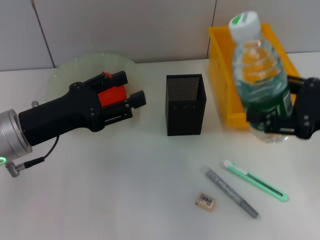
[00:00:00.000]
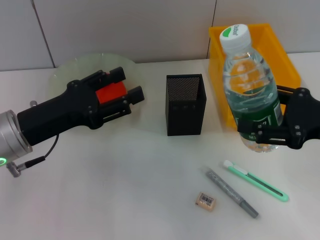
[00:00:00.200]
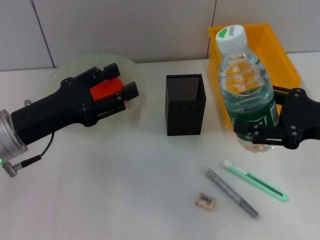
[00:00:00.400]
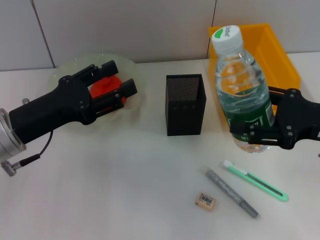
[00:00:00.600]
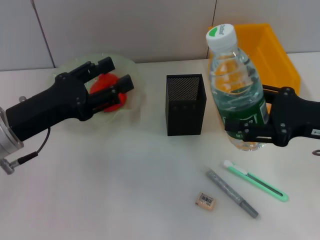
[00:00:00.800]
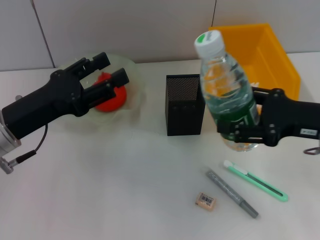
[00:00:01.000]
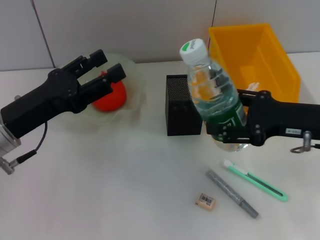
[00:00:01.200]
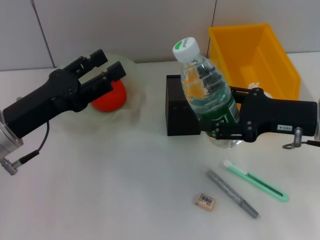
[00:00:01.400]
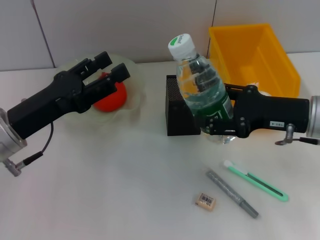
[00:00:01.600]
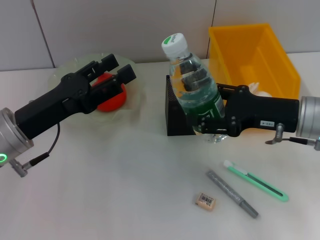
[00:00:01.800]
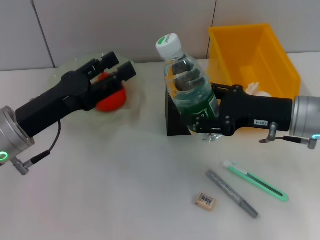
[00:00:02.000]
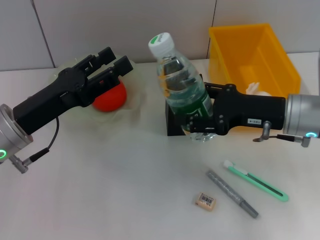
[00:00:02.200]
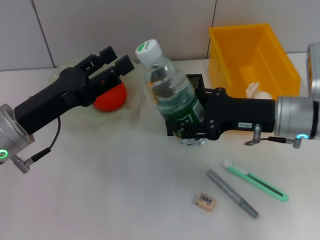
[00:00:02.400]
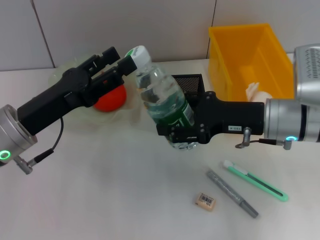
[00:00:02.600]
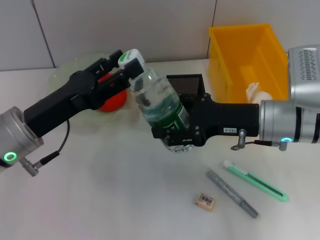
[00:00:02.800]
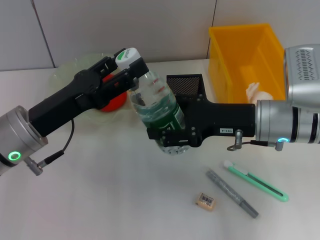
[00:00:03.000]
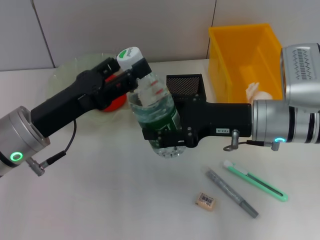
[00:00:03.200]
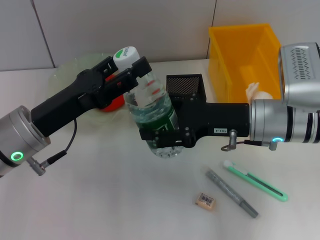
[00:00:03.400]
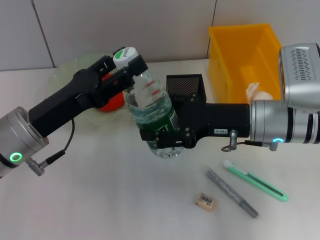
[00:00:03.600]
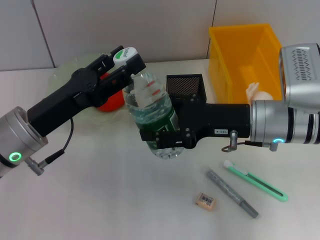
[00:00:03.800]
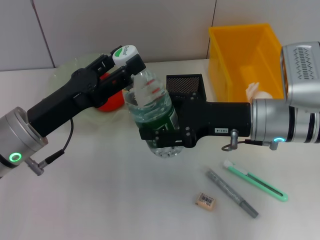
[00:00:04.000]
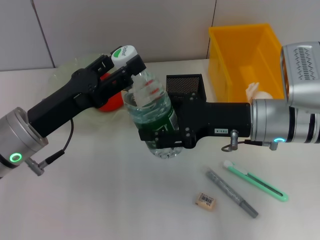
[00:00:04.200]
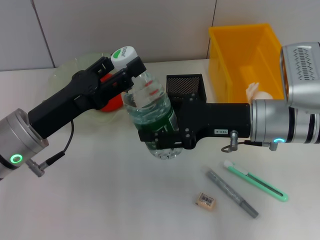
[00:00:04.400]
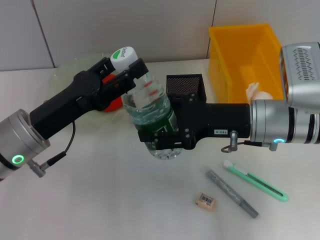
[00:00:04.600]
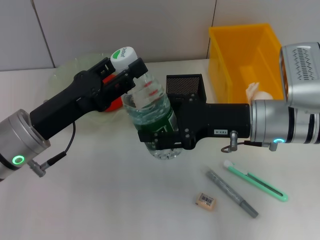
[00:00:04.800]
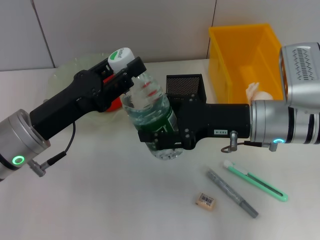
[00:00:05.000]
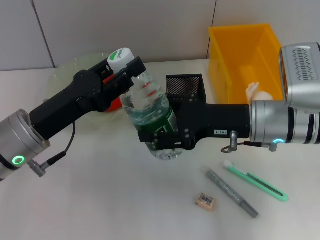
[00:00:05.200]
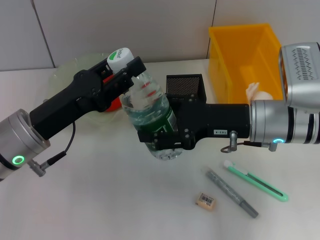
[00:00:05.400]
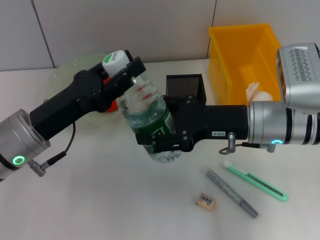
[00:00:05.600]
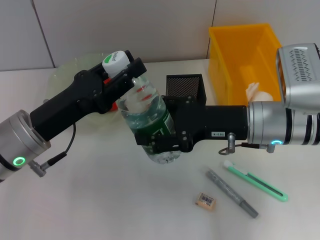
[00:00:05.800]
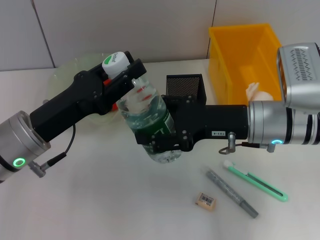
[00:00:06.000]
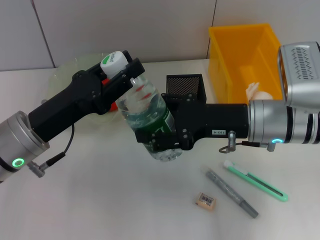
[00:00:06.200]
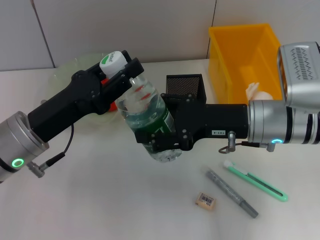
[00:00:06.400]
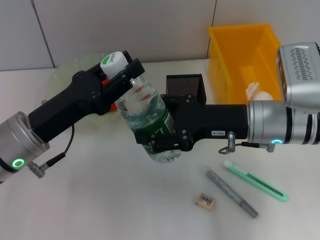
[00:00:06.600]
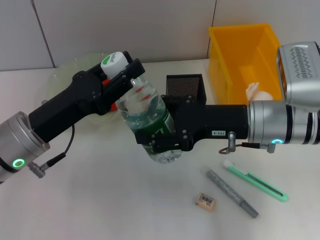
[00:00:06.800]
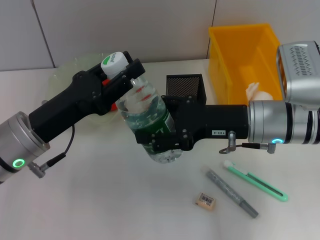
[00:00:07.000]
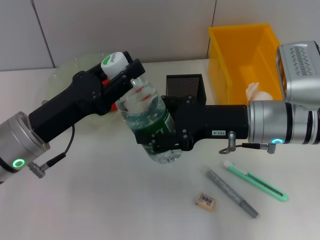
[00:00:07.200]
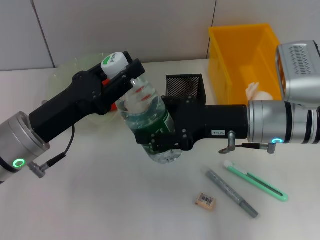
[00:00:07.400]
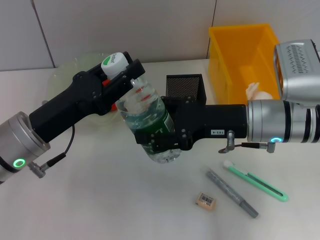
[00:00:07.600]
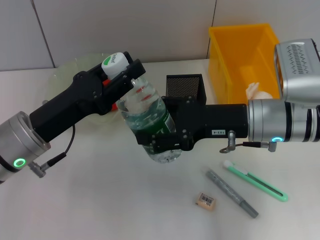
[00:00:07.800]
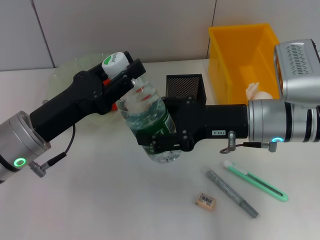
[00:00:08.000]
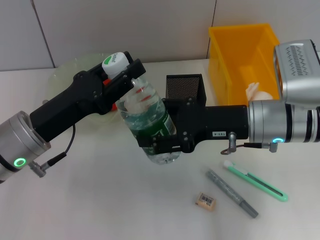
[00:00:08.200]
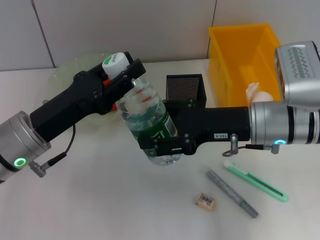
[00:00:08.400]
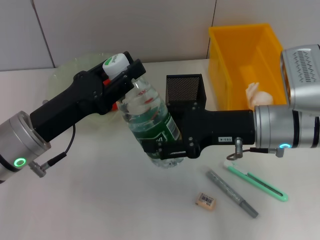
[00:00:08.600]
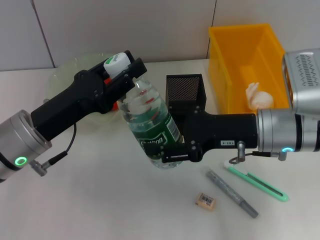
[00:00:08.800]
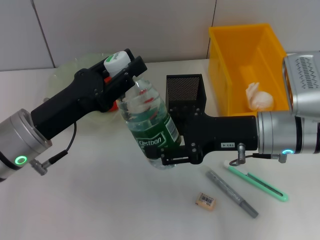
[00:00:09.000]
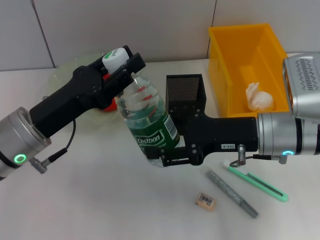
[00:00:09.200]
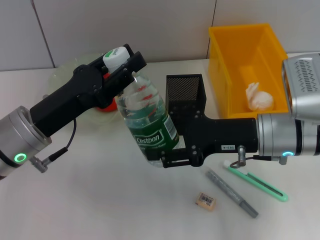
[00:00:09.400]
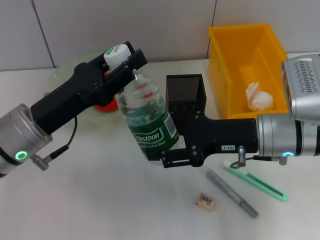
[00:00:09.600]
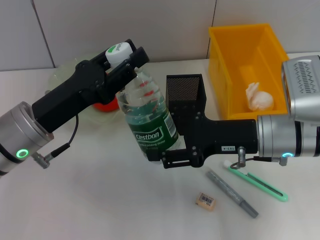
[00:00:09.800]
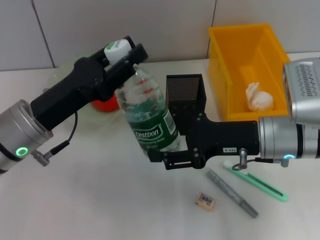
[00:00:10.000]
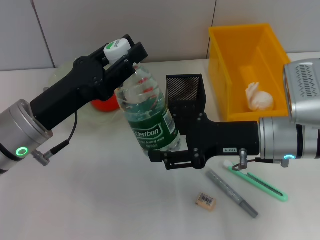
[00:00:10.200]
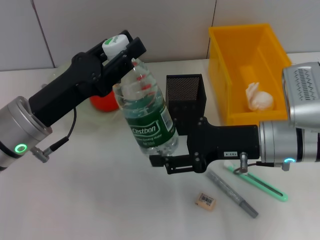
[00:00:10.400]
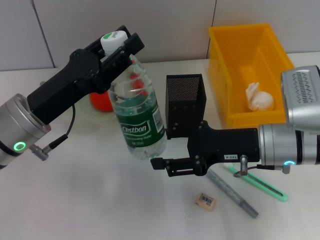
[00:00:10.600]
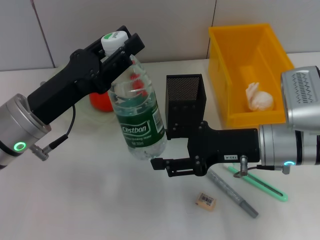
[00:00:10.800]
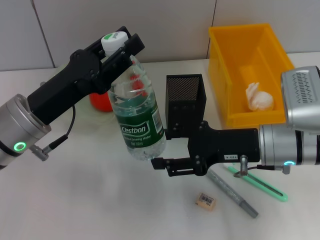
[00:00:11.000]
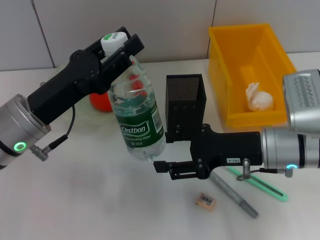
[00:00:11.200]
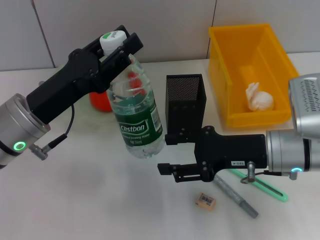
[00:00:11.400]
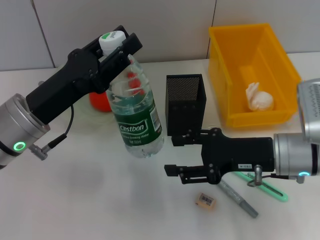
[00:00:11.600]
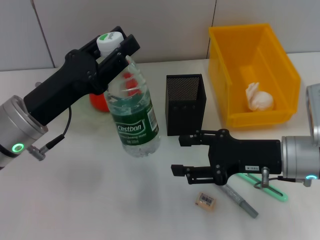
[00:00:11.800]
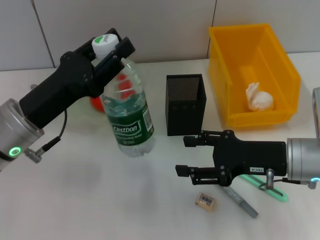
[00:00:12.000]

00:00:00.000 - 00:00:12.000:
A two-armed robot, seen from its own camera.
Step, 00:00:00.000 - 00:00:10.200: Pass the water bottle from the right hand to the left hand.
00:00:00.000 - 00:00:01.600: The right gripper shifts roughly 5 cm to the left and forward.
00:00:01.600 - 00:00:03.000: The right gripper travels to the left by approximately 5 cm.
00:00:03.000 - 00:00:04.400: Both grippers stay put.
00:00:04.400 - 00:00:06.000: Neither gripper changes place.
00:00:06.000 - 00:00:07.600: Both grippers stay put.
00:00:07.600 - 00:00:10.400: The grippers make only small movements.

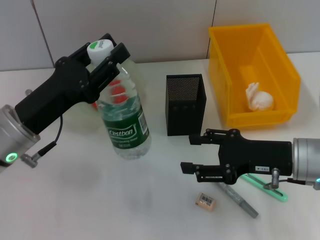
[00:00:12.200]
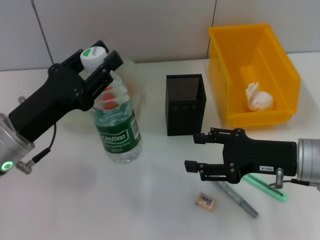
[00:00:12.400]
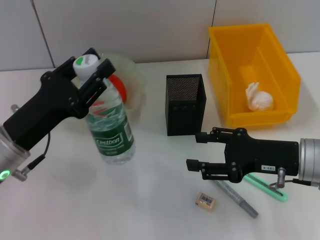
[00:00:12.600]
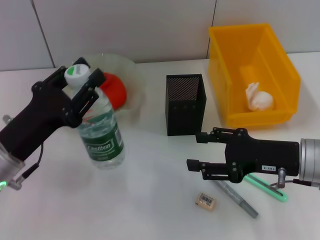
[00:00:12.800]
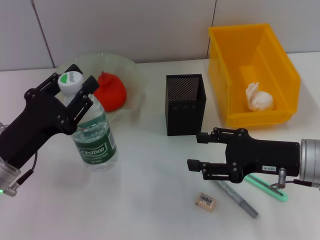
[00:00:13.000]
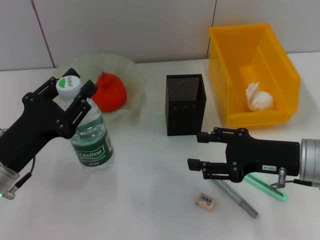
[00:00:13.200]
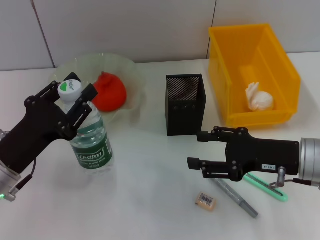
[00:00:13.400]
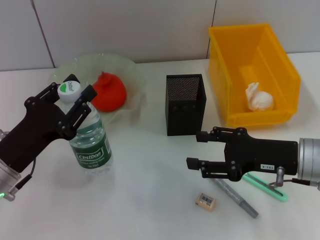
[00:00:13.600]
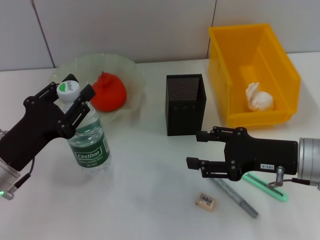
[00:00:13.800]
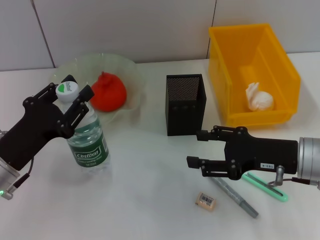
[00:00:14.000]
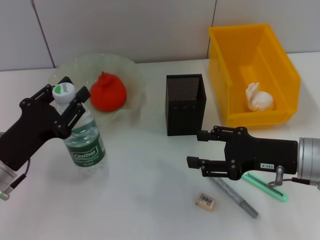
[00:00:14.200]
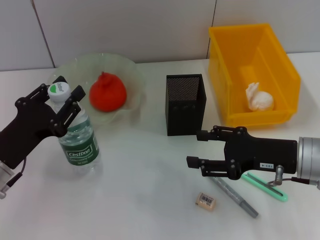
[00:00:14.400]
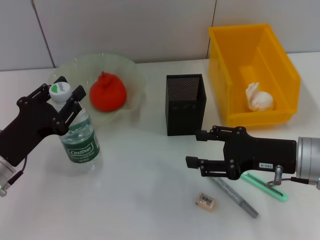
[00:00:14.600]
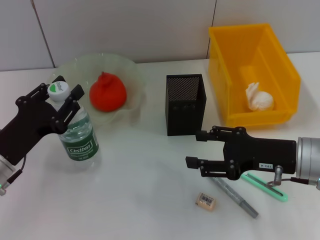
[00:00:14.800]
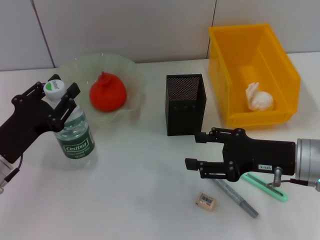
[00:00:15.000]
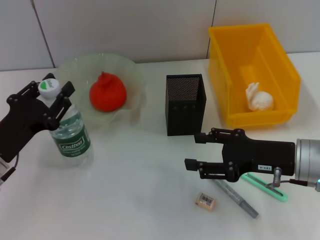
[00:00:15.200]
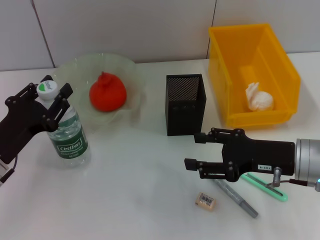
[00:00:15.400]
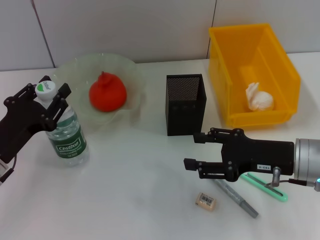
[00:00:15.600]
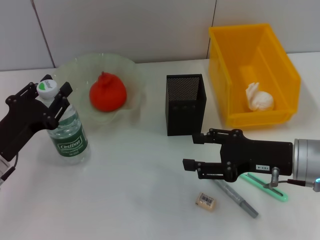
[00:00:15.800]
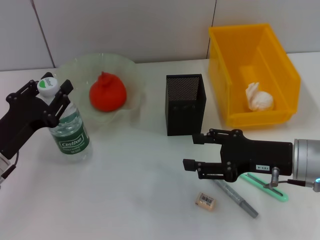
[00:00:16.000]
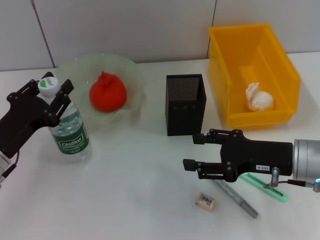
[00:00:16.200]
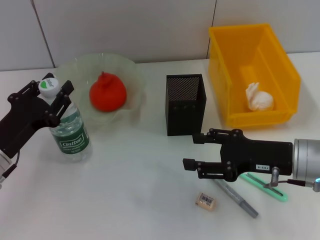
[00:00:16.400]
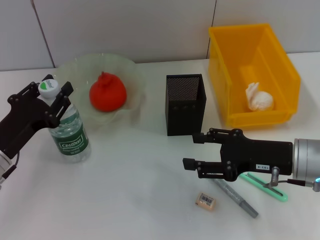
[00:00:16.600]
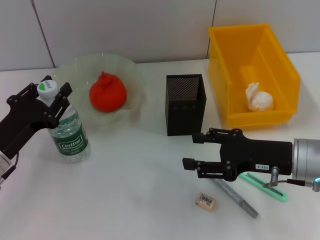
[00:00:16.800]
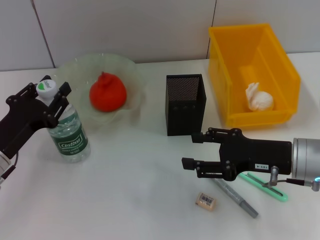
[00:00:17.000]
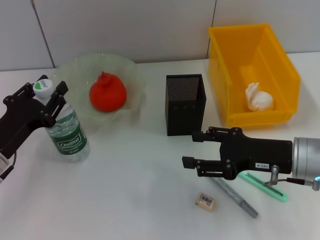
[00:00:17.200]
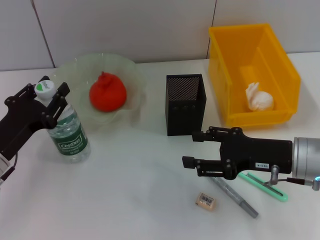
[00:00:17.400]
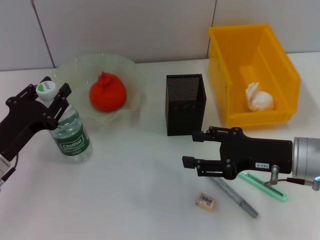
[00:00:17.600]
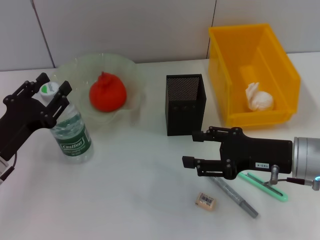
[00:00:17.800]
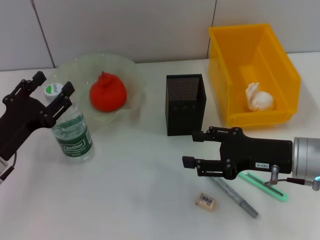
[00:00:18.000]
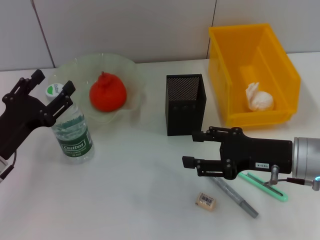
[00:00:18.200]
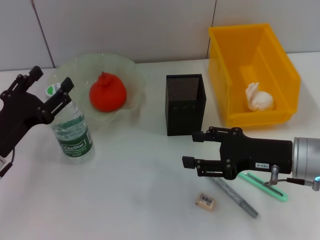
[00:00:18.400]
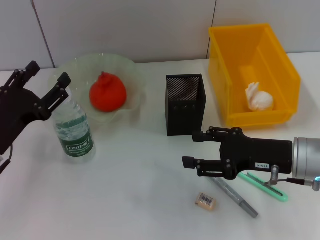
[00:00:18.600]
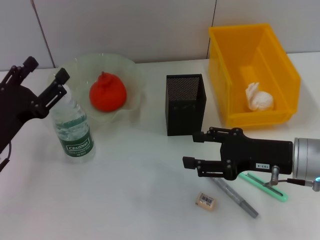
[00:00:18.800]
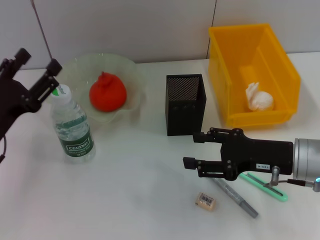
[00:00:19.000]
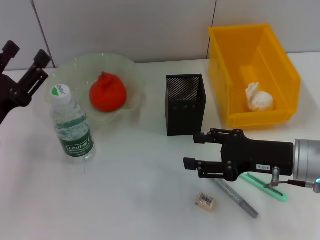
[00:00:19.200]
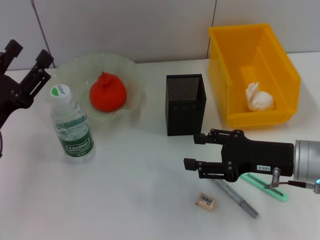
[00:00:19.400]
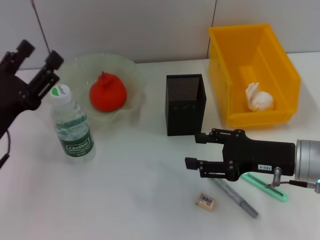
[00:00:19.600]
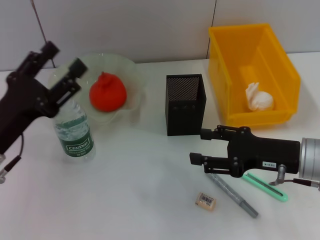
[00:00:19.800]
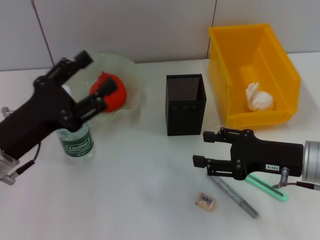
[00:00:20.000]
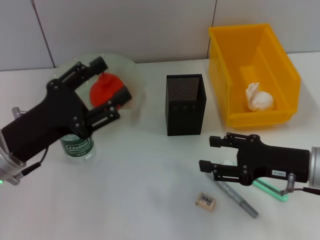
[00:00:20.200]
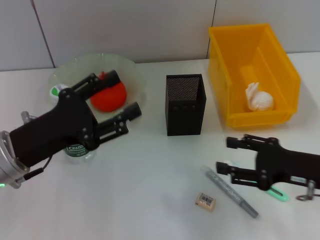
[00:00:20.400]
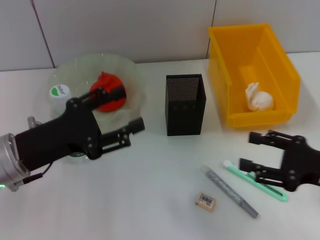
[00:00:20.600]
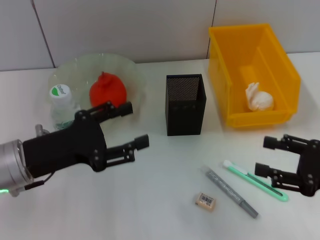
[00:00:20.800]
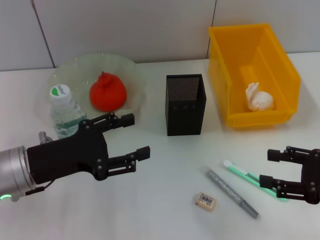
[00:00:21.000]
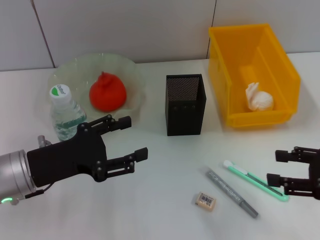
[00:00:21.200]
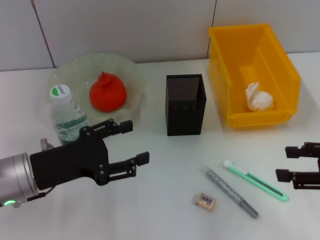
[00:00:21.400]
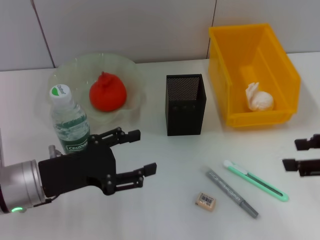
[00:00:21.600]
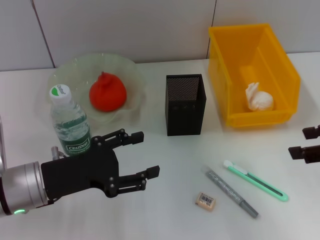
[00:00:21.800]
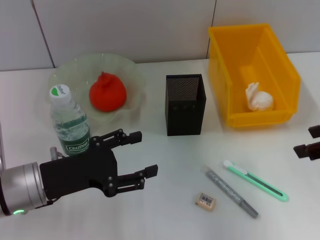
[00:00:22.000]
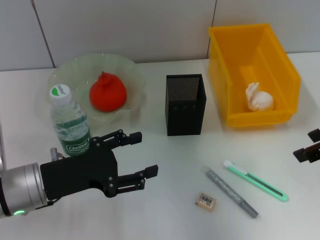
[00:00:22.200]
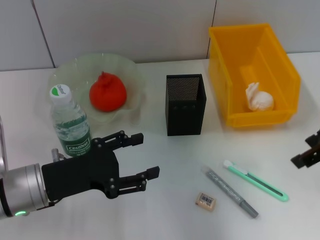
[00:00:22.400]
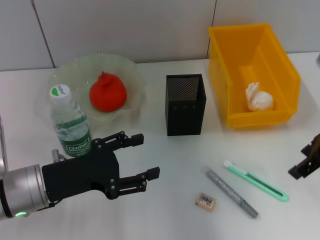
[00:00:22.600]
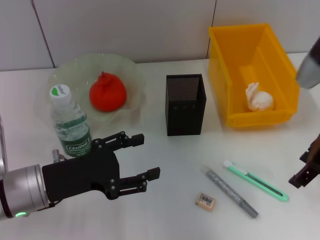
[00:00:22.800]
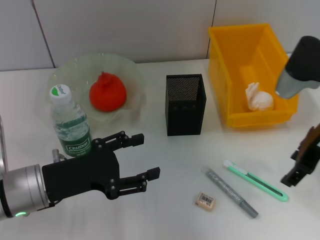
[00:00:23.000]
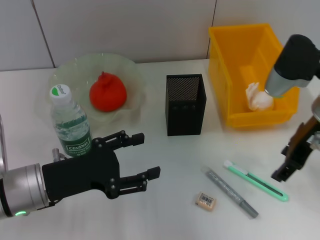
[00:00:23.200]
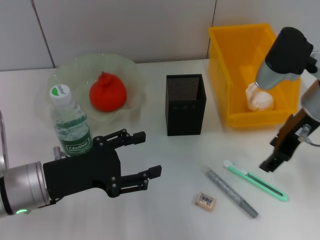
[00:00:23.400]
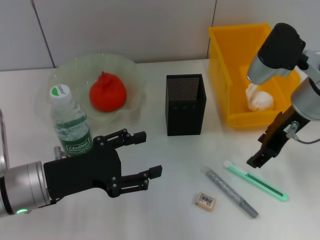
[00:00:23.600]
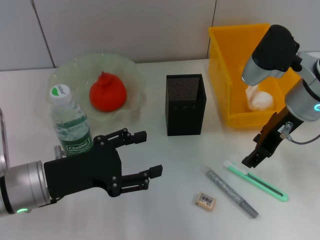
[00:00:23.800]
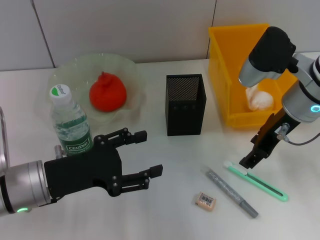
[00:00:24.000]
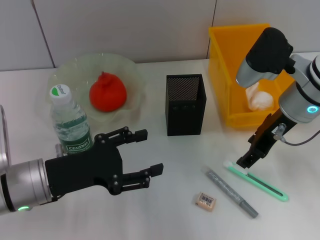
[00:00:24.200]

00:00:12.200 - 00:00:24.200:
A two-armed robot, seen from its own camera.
Step, 00:00:12.200 - 00:00:19.000: Place the water bottle on the table with the left hand.
00:00:12.200 - 00:00:13.800: The left gripper shifts by some 5 cm.
00:00:13.800 - 00:00:15.200: There are only small adjustments of the grippers.
00:00:15.200 - 00:00:16.600: Both grippers stay put.
00:00:16.600 - 00:00:18.200: The left gripper opens up.
00:00:19.800 - 00:00:21.200: The right gripper moves to the right and backward, some 10 cm.
00:00:21.200 - 00:00:22.600: The right gripper is displaced forward, upward and to the left by approximately 15 cm.
00:00:22.600 - 00:00:24.200: The right gripper travels to the left by about 5 cm.
